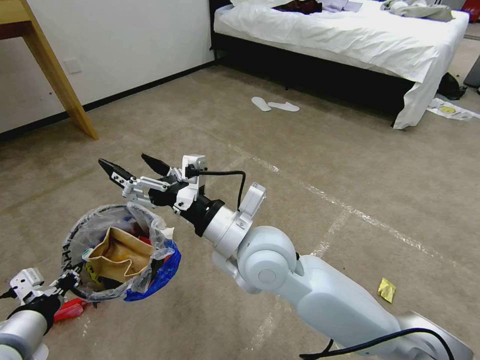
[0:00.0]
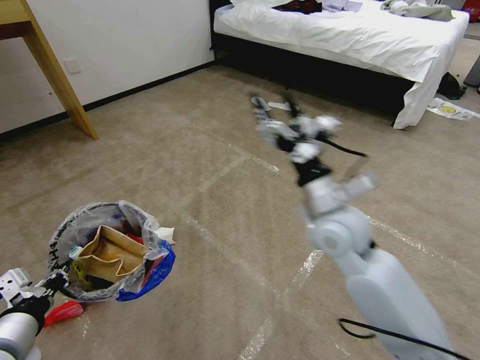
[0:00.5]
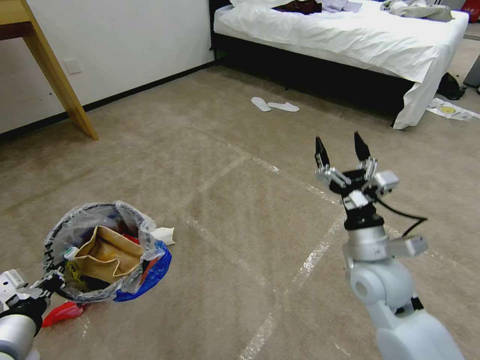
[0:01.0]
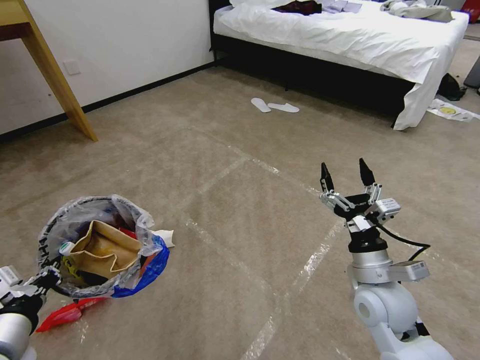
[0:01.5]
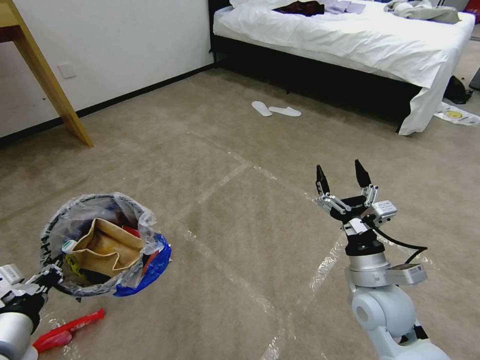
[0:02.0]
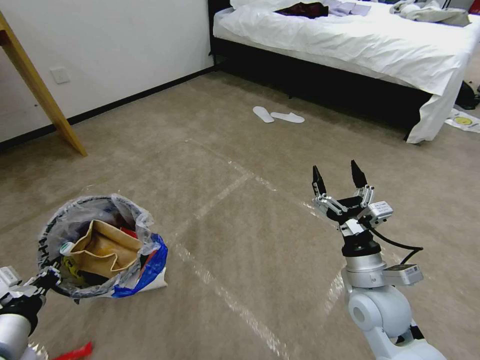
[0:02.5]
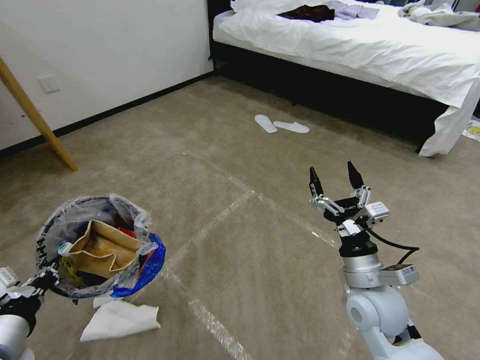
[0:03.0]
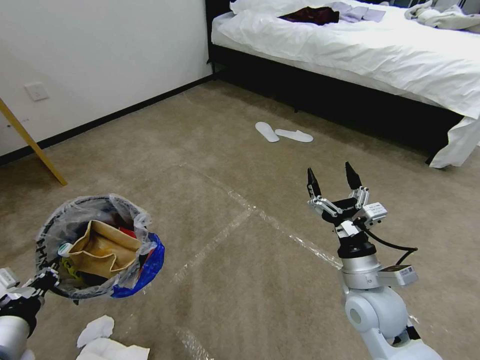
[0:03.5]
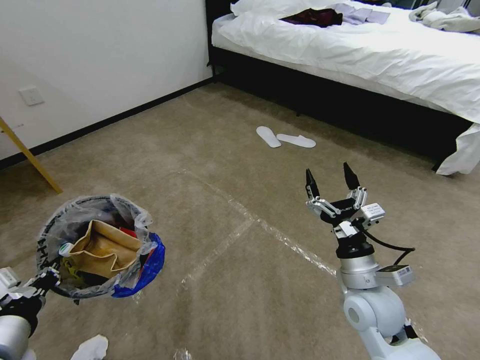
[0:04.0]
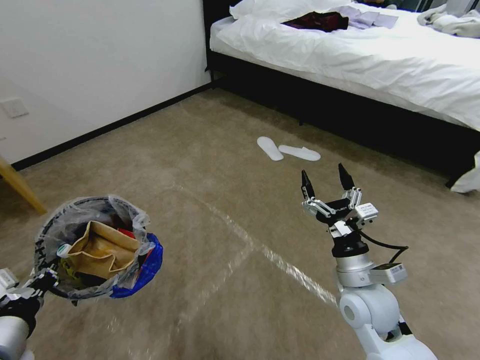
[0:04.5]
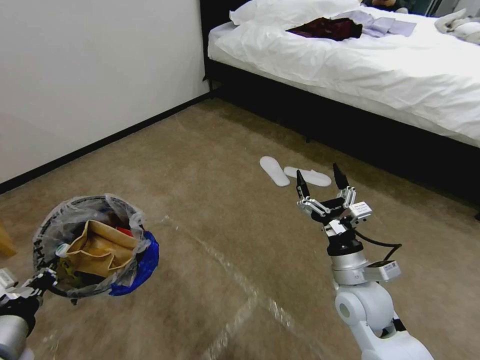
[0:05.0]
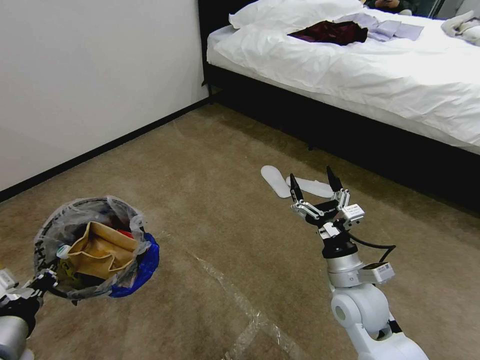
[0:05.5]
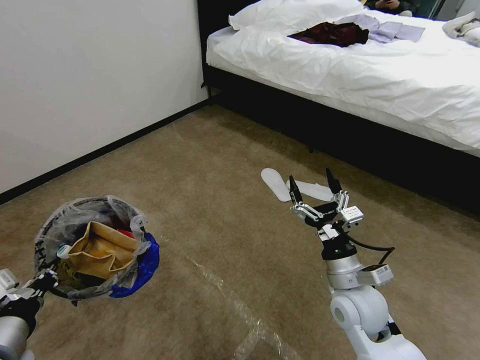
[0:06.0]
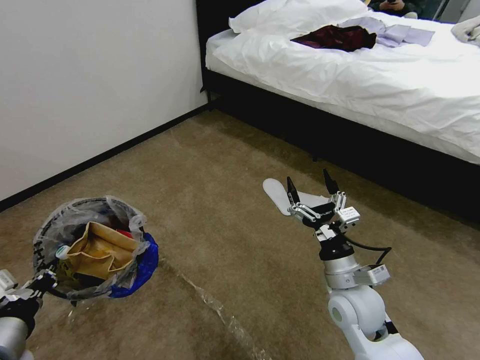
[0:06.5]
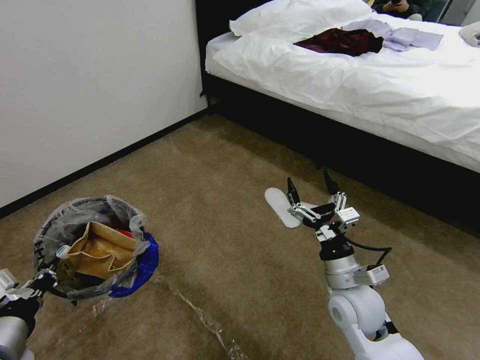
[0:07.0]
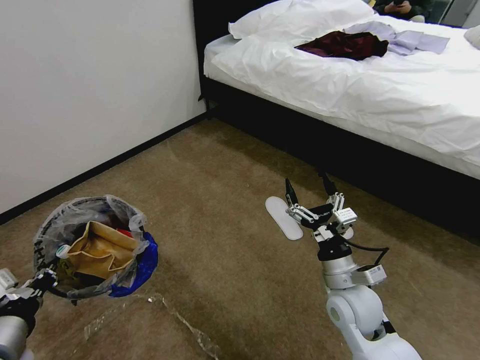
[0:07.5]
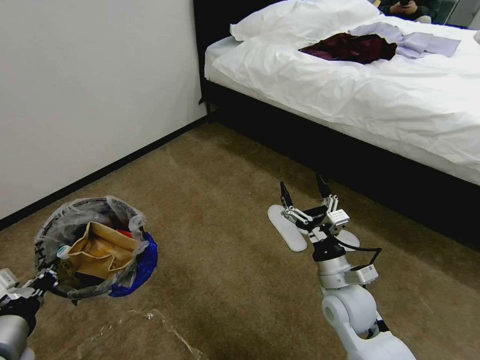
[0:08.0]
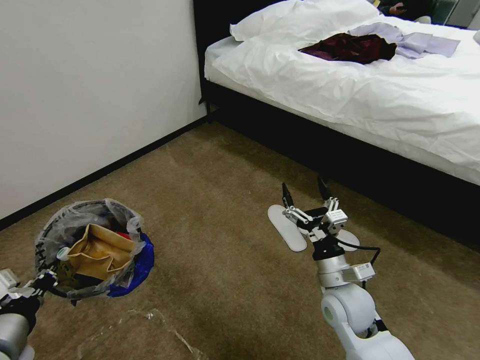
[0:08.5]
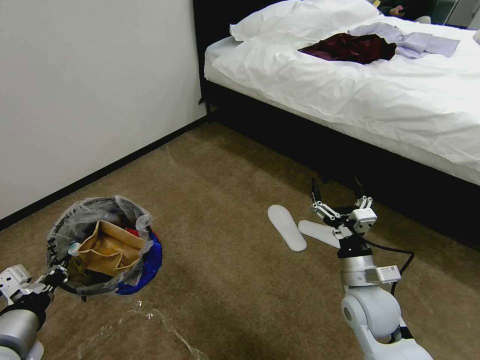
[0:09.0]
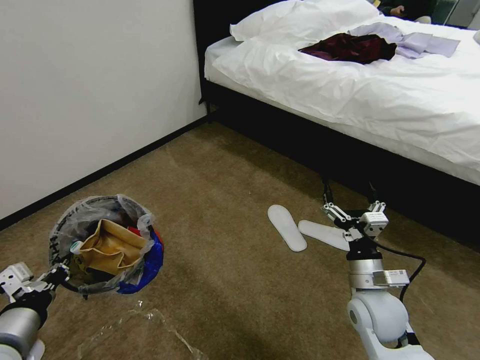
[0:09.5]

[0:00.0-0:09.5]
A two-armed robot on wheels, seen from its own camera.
Task of the whole recording: Pick up the trash bin and place the garbage on the floor into it.
0:00.0 to 0:02.0: The right gripper travels to the right and downward by about 25 cm.
